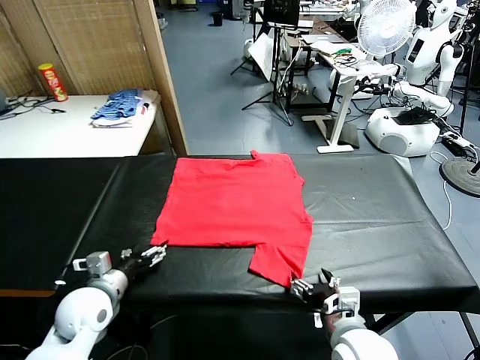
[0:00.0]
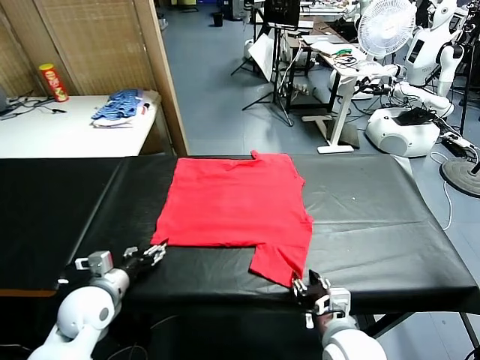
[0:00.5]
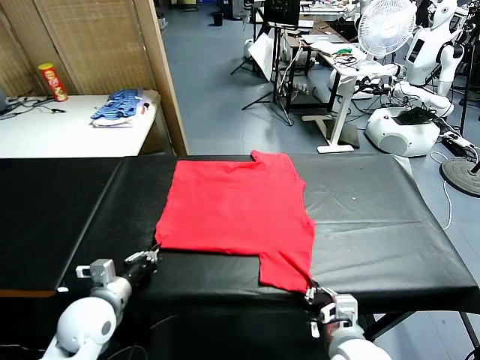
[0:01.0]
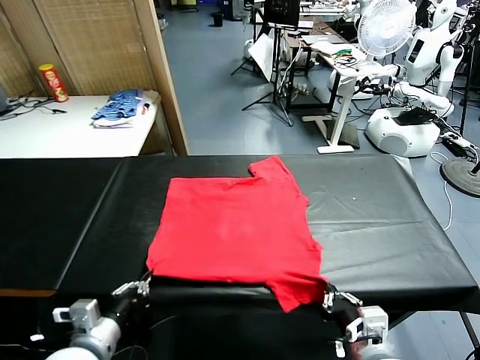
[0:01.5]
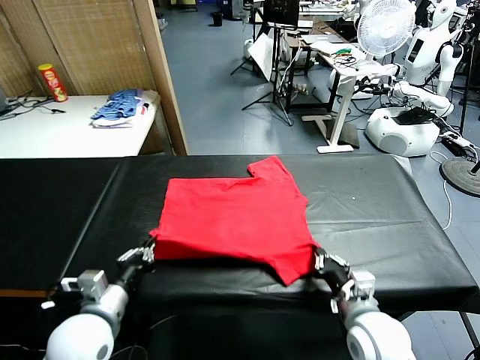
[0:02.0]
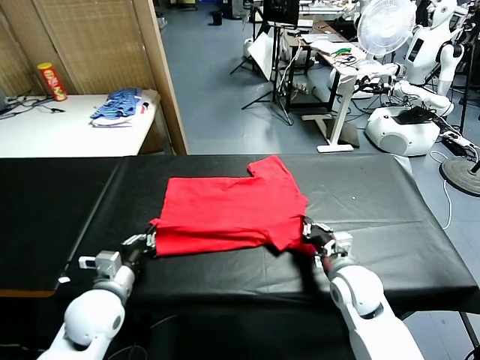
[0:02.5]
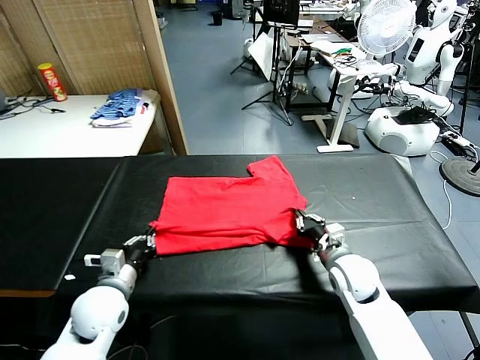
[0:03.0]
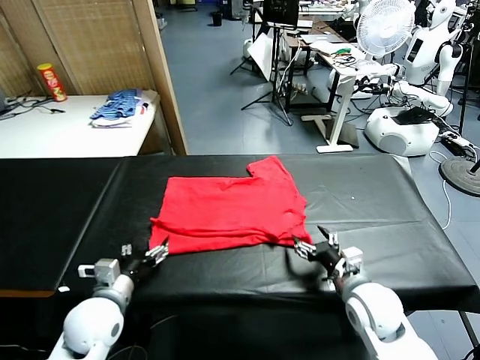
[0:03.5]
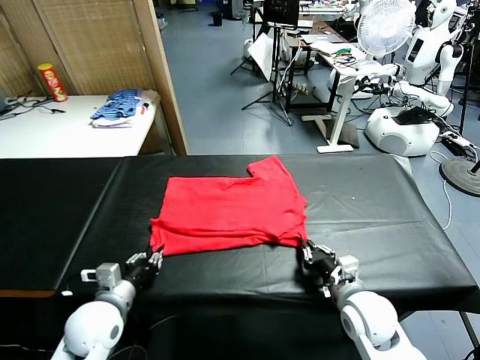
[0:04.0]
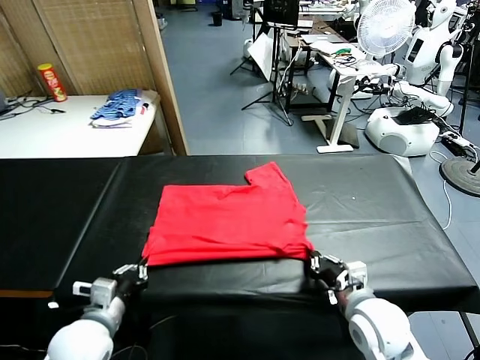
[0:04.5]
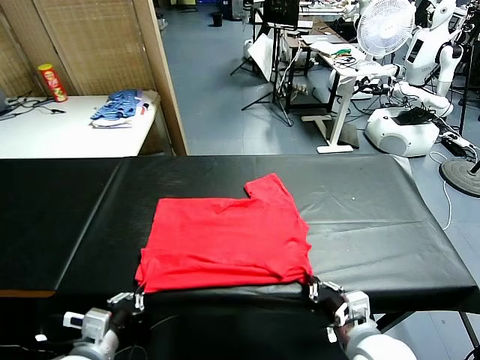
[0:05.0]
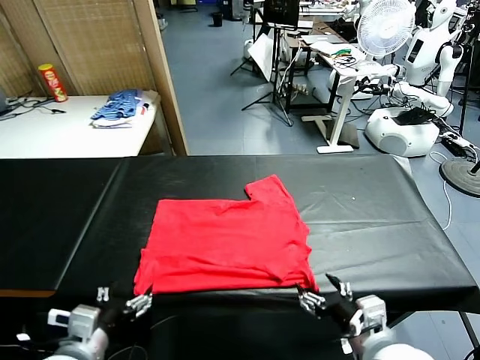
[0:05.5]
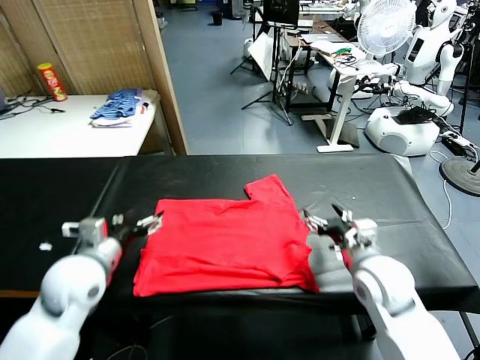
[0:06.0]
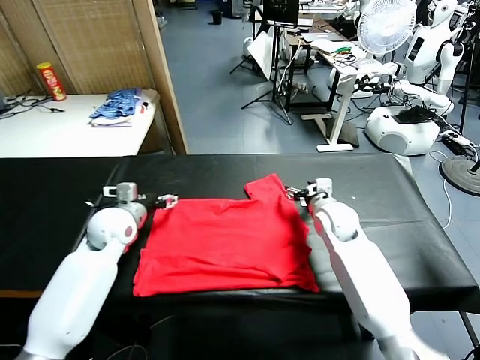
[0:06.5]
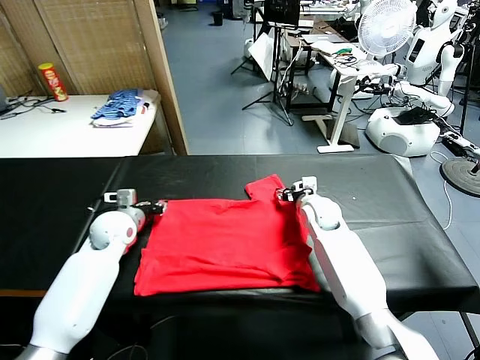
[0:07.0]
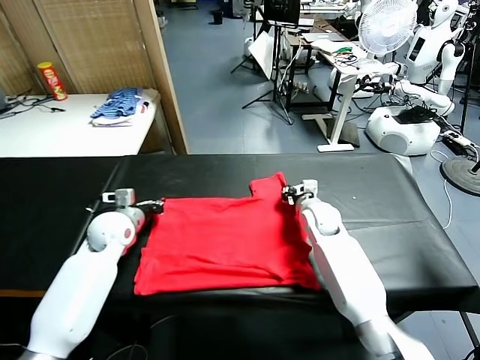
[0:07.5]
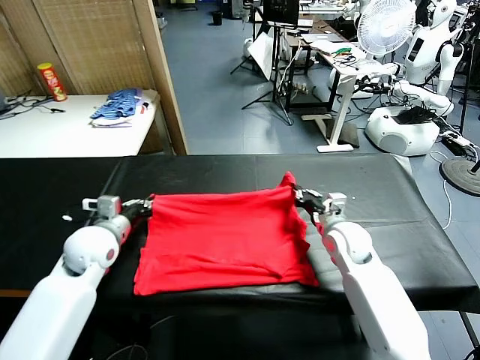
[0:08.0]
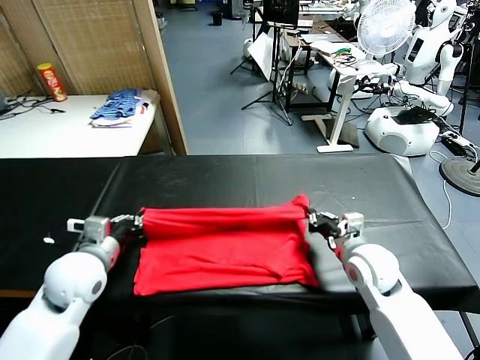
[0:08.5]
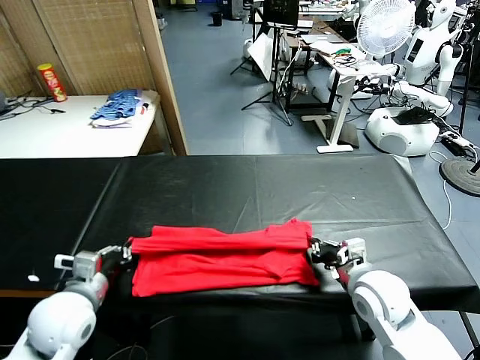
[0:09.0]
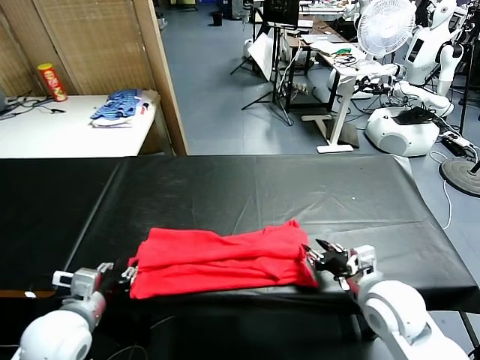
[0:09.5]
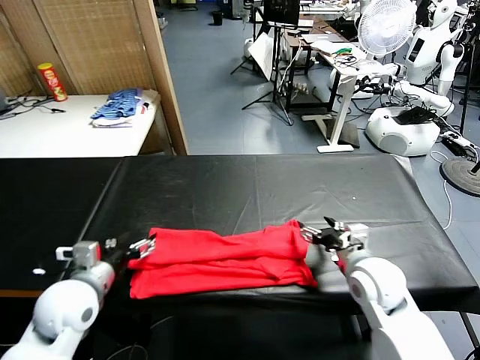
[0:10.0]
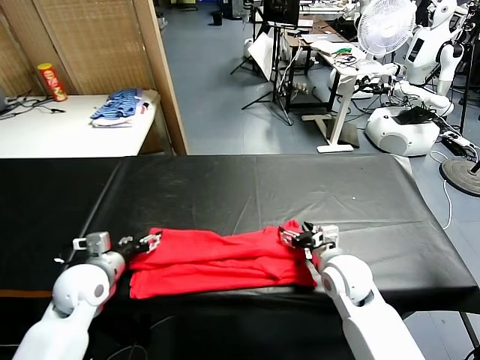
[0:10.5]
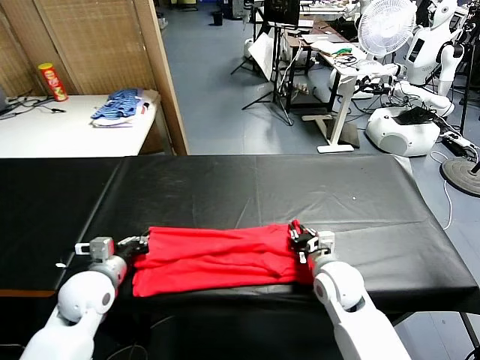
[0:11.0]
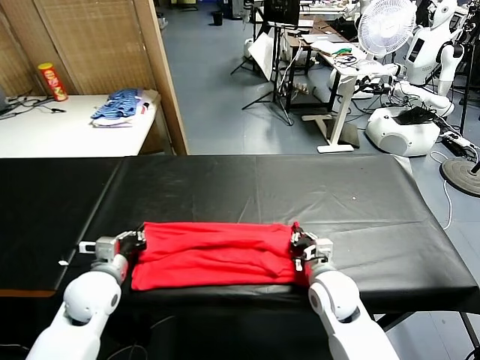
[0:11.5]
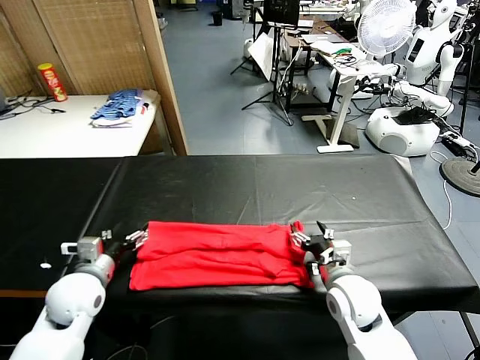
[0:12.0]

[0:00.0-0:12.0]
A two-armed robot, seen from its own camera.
Task of the whole recording: fold and organize the clothes.
Step, 0:00.0 to 0:01.0: use both grippers simultaneously to clamp the lower edge of the clothing fabric.
Step, 0:01.5 to 0:03.0: use both grippers to drag the lower edge of the fabric forward and fold it over the upper edge.
Step, 0:04.0 to 0:05.0: Drag the clothes downward with both gripper.
Step, 0:05.5 to 0:07.5: use both grippers simultaneously to clamp the upper edge of the clothing fabric.
Step, 0:08.0 to 0:09.5: use both grippers to drag the upper edge of the fabric backward and fold it over the lower edge.
0:02.0 to 0:04.0: The left gripper changes place by about 5 cm, and opens and closes again; the right gripper moves some 10 cm forward and comes back, and opens, then closes again.
0:04.0 to 0:06.0: The left gripper heads upward and forward, covering roughly 15 cm, and opens; the right gripper heads forward and upward, covering some 10 cm, and opens.
0:06.0 to 0:08.0: The right gripper goes forward and returns, roughly 15 cm each way, and closes. The left gripper closes.
0:08.0 to 0:10.0: The two grippers go about 10 cm backward. The left gripper opens its fingers; the right gripper opens.
0:10.0 to 0:12.0: The left gripper moves some 5 cm, and closes, then reopens, while the right gripper closes, then opens again.

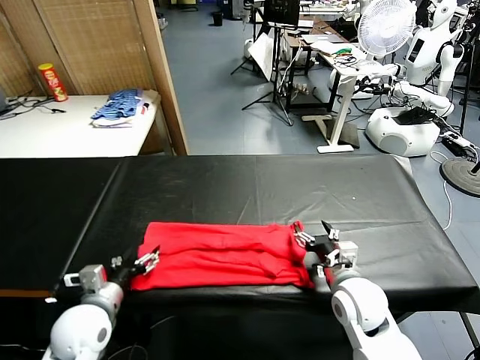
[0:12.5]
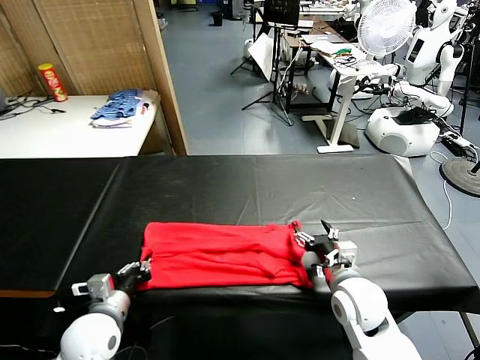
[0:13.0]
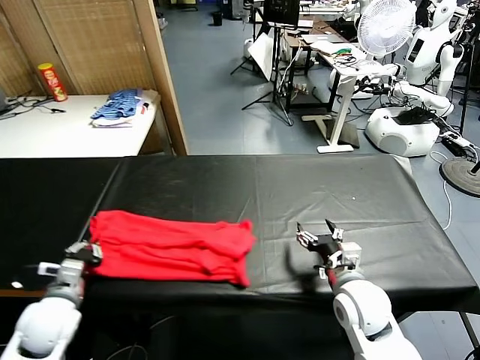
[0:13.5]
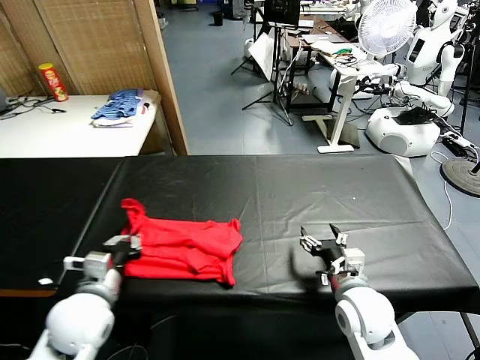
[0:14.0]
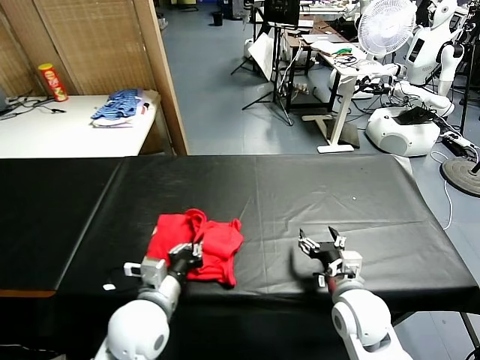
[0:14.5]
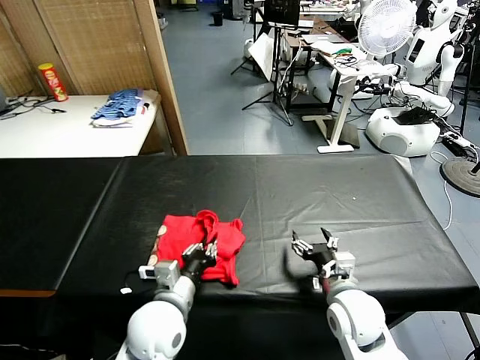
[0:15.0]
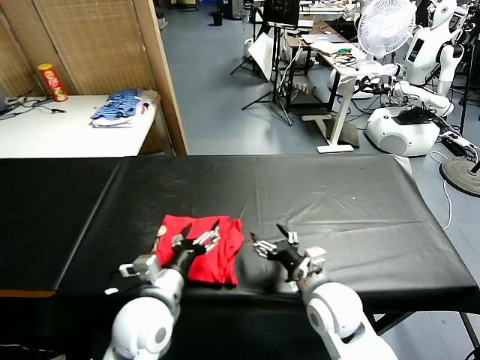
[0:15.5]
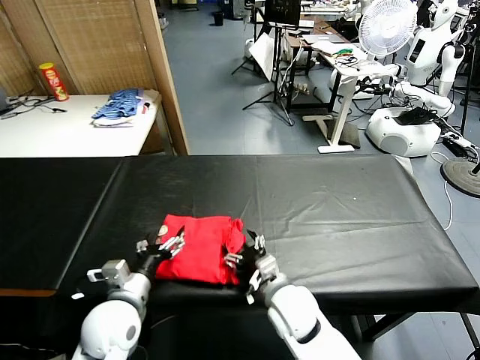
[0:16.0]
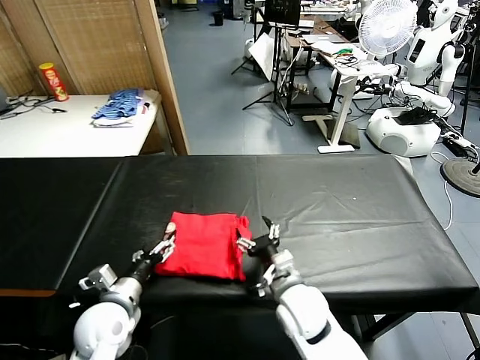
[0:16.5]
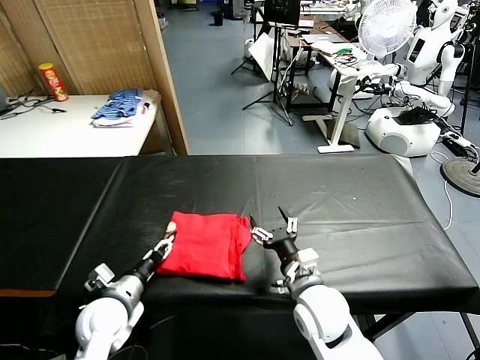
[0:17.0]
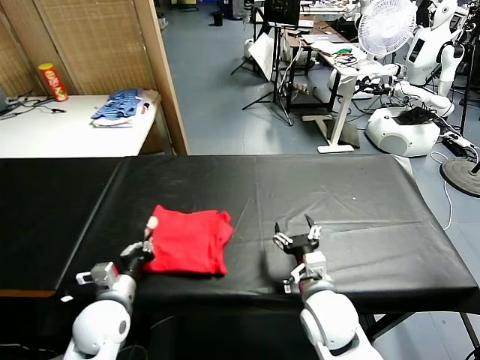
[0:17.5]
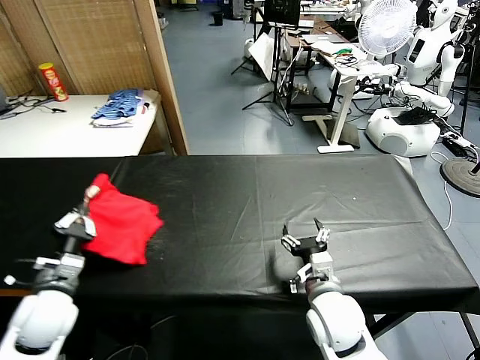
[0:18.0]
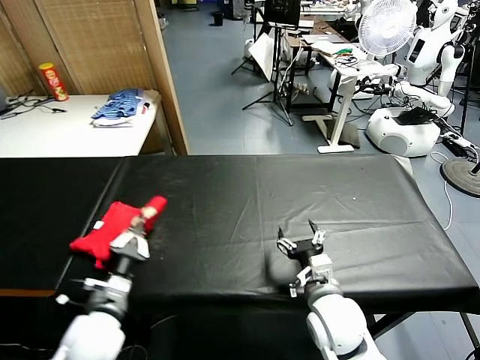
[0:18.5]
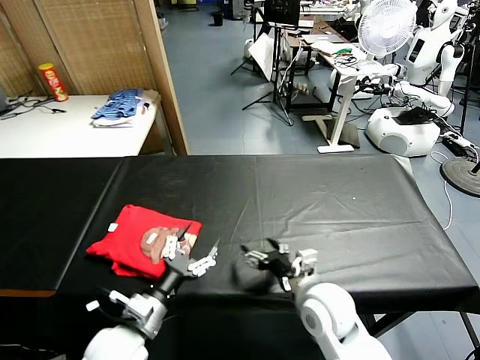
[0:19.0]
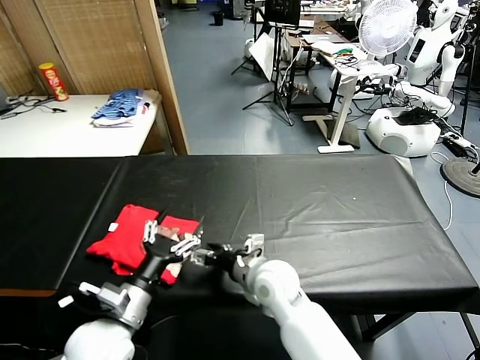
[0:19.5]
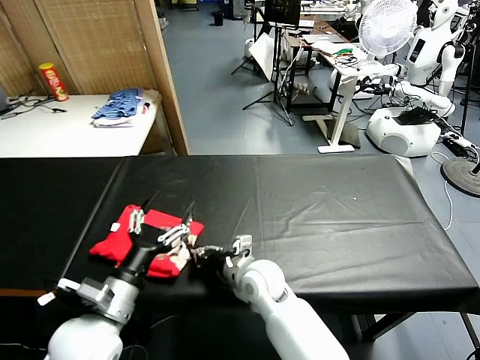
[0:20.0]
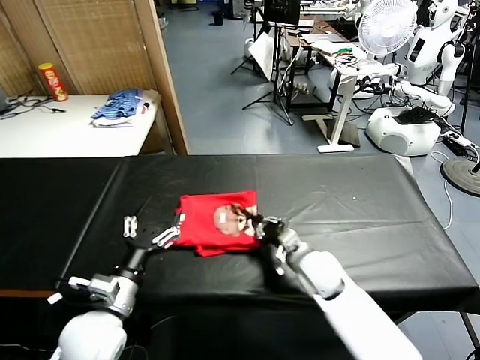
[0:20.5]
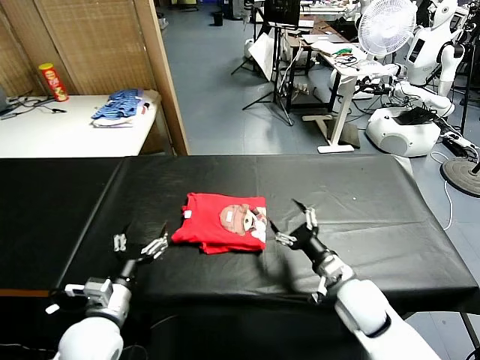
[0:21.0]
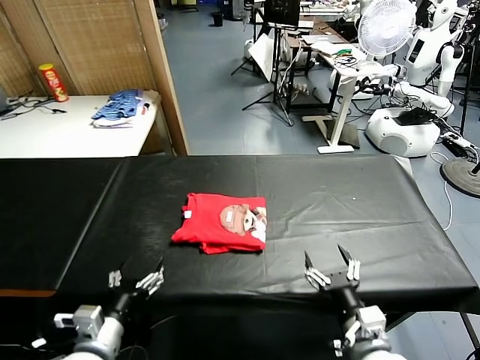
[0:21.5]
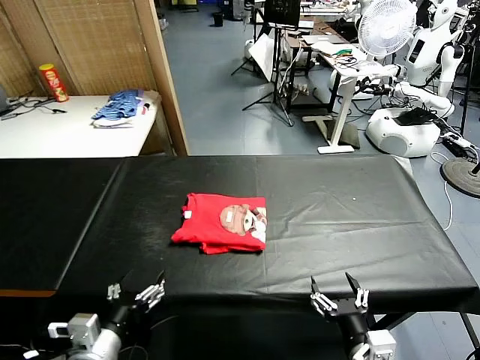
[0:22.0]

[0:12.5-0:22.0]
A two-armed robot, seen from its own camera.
Task of the whole recording: fold and organize the clothes.
Step, 0:13.5 to 0:15.0: use the left gripper to drag the left edge of the fabric to the left and folds it over the right edge.
Step, 0:15.5 to 0:18.5: Flip the folded clothes over with left gripper.
Step, 0:19.0 to 0:20.5: Drag the clothes to the center of the table.
0:12.5 to 0:14.5: The left gripper shifts approximately 10 cm to the right, and closes.
0:14.5 to 0:16.5: The left gripper shifts roughly 10 cm to the left and downward, and opens, while the right gripper moves to the left, some 10 cm.
0:16.5 to 0:18.0: The right gripper moves roughly 5 cm. The left gripper shifts some 10 cm to the left, and closes.
0:18.0 to 0:20.0: The left gripper goes roughly 15 cm to the right, backward and upward, and opens, while the right gripper shifts approximately 15 cm to the left, forward and downward, and closes up.
0:20.0 to 0:22.0: The right gripper is displaced backward and to the right by some 30 cm, and opens up. Meanwhile the left gripper is displaced backward by some 5 cm.
